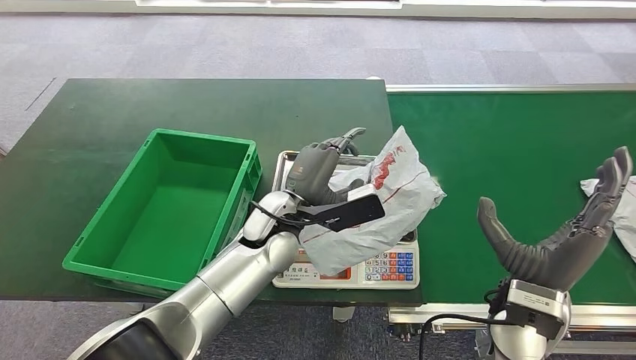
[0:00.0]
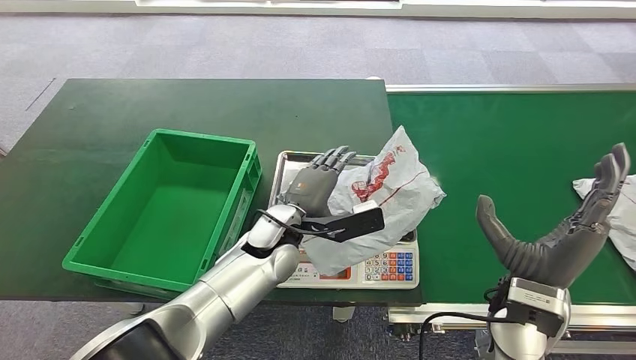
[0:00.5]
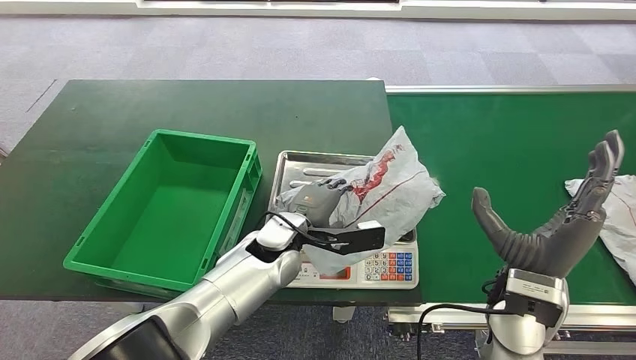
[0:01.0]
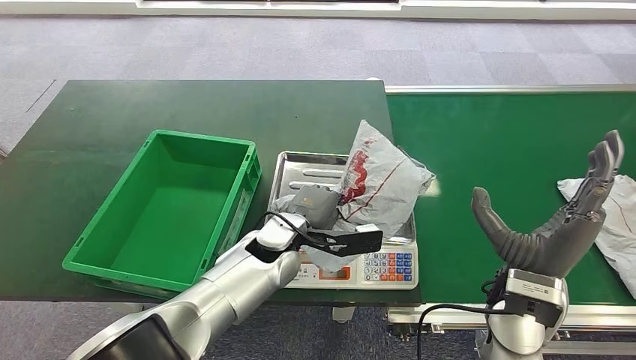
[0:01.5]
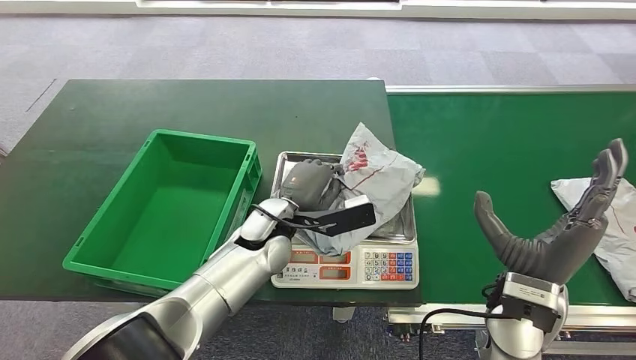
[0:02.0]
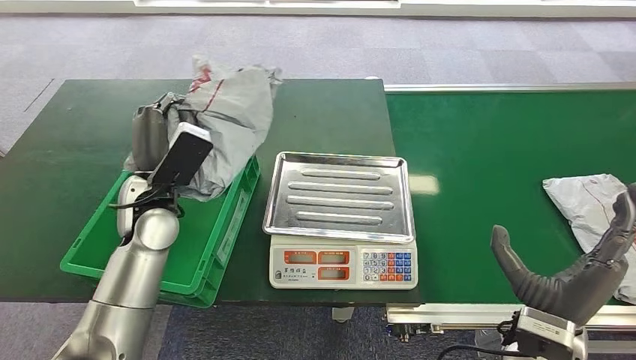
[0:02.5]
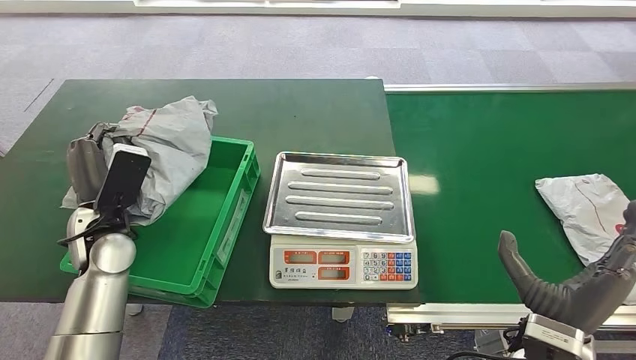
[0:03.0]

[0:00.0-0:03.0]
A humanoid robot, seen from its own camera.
Step, 0:00.0 to 0:02.0: Pick up the package from the inbound machine.
Step, 0:02.5 to 0:03.0: Place the package into the parcel locker.
